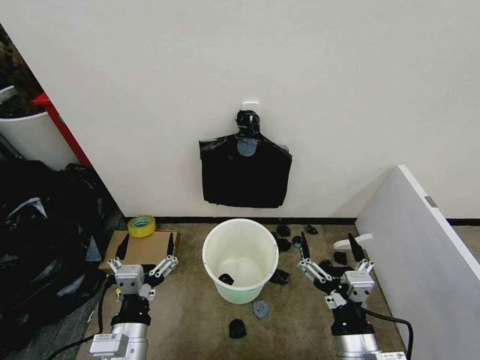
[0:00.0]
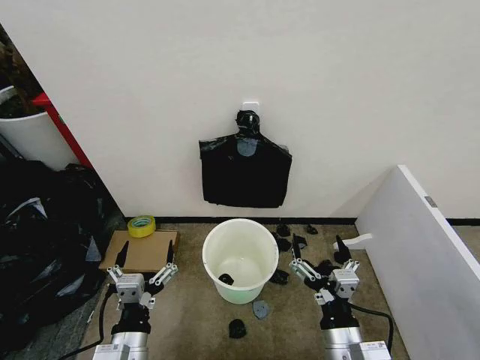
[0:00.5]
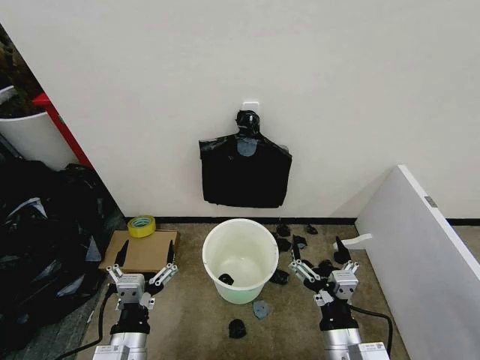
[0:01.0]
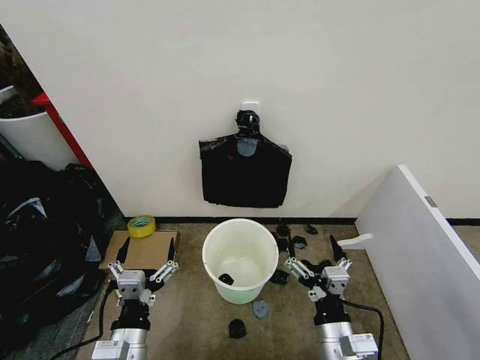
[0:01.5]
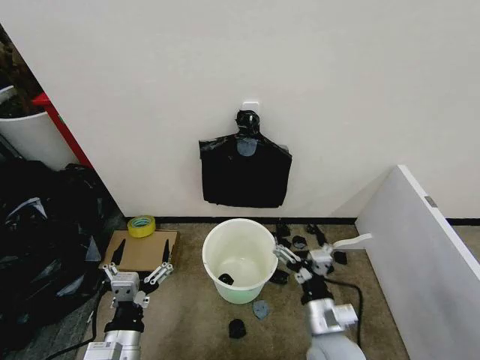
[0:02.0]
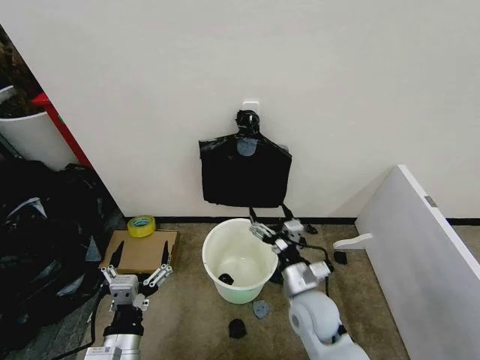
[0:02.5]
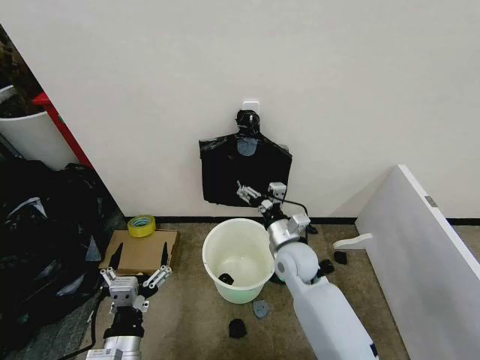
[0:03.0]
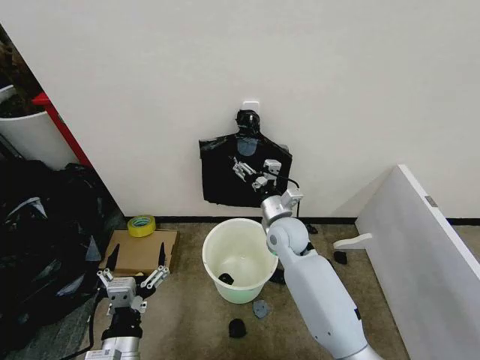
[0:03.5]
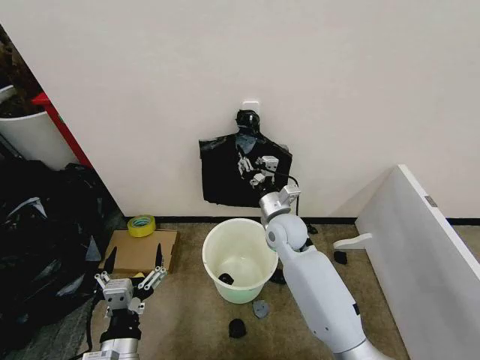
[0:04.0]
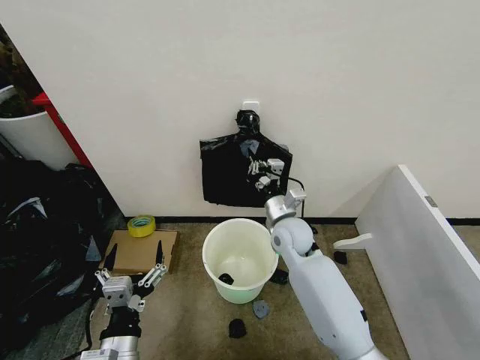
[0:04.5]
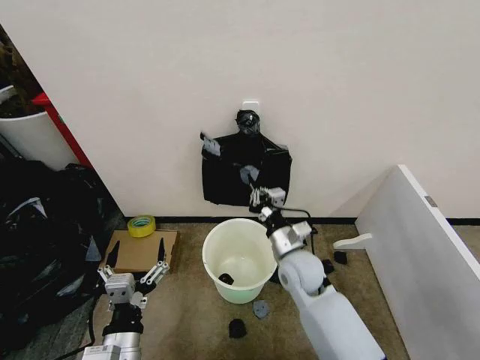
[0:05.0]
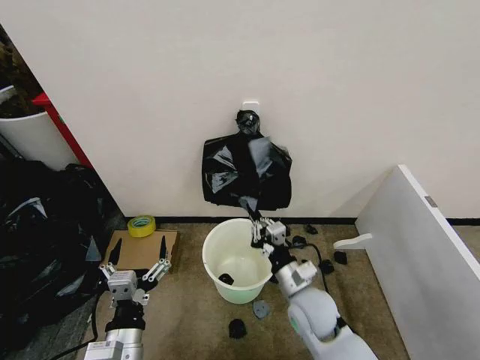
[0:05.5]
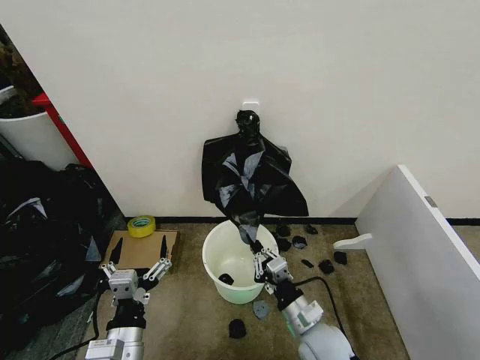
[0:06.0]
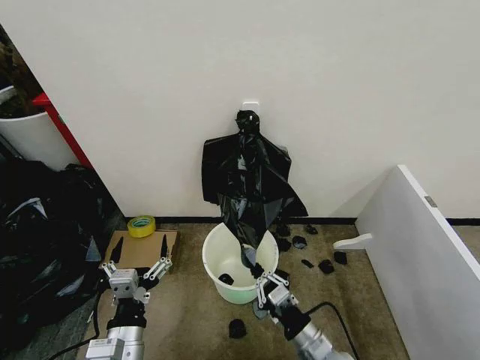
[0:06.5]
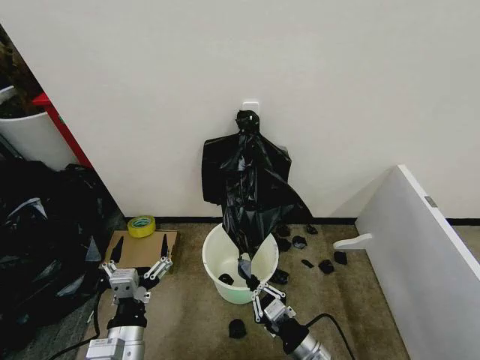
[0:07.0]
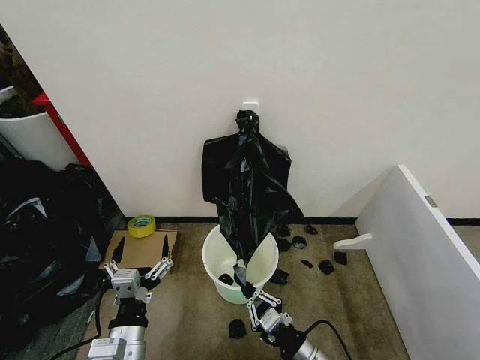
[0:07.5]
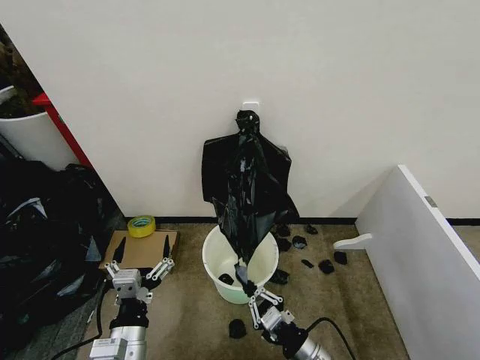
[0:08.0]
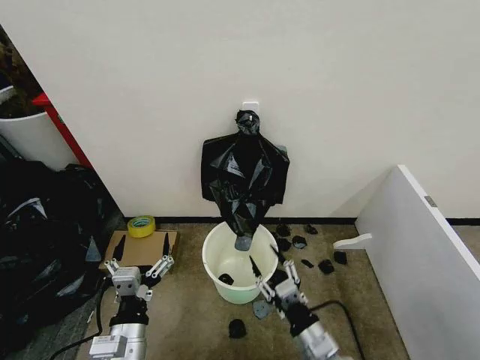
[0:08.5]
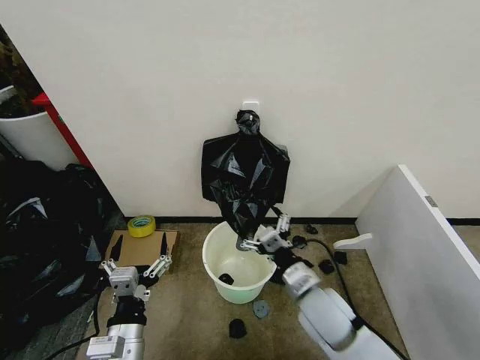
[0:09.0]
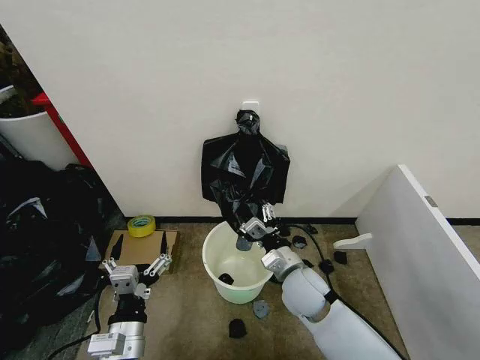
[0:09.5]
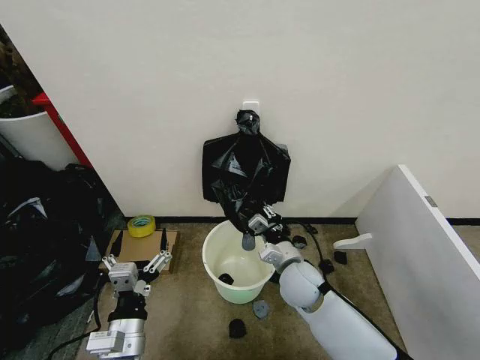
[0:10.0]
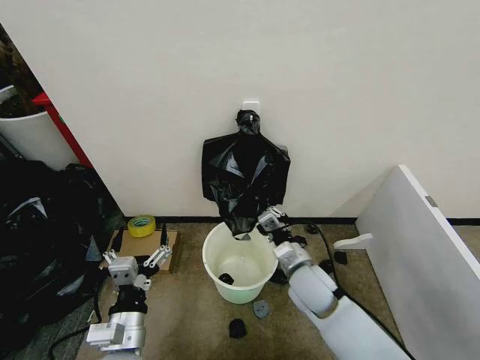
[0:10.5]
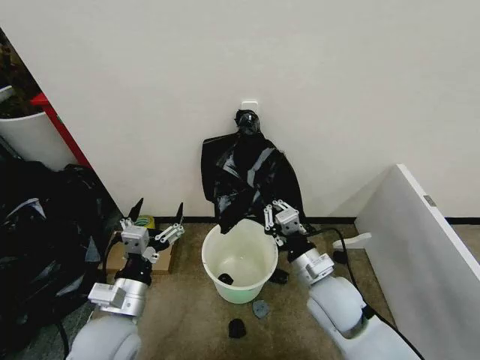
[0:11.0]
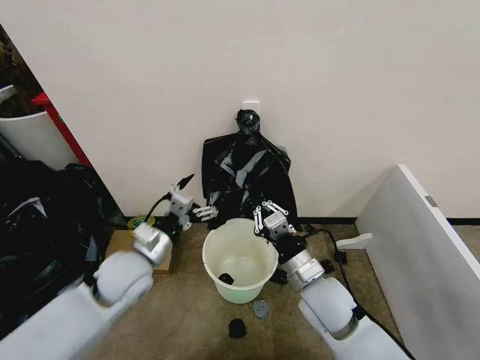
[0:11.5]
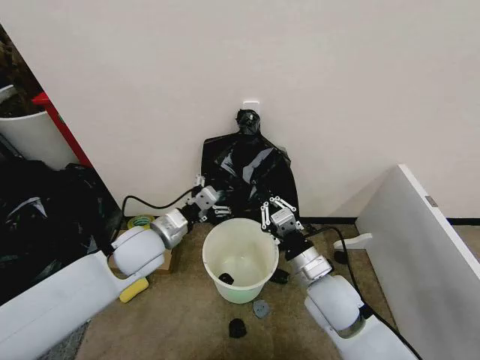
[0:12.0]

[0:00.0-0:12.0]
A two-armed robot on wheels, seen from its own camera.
Task of the whole recording: Place the garbage bag over the trash bin.
0:02.0 to 0:04.0: The right gripper goes approximately 25 cm forward, and closes.
0:04.0 to 0:06.0: The right gripper travels backward and downward by approximately 25 cm.
0:06.0 to 0:08.0: The right gripper goes roughly 5 cm backward.
0:08.0 to 0:10.0: The right gripper goes some 20 cm forward, and opens and closes again.
0:10.0 to 0:12.0: The right gripper travels upward and backward by roughly 10 cm, while the left gripper goes some 20 cm forward.

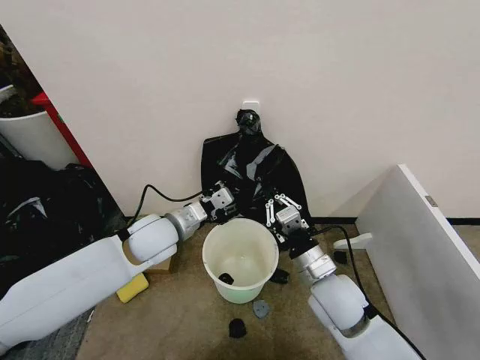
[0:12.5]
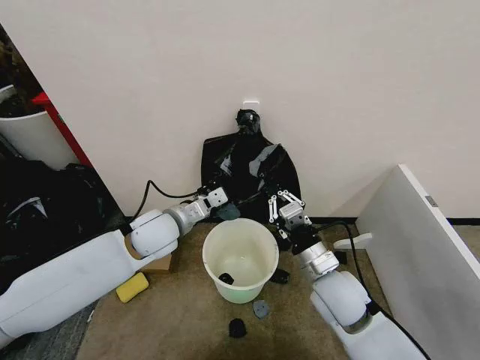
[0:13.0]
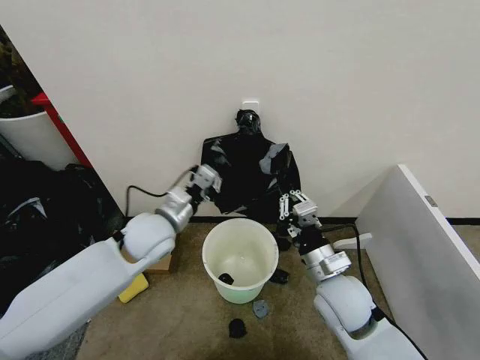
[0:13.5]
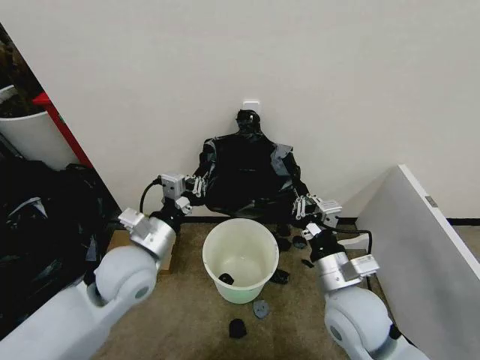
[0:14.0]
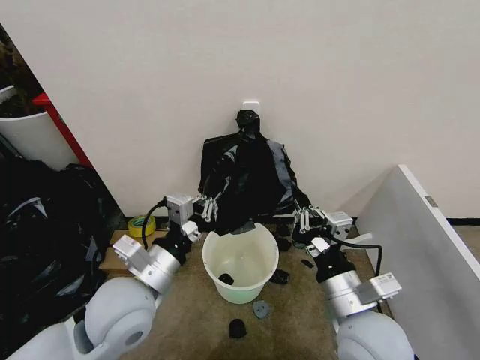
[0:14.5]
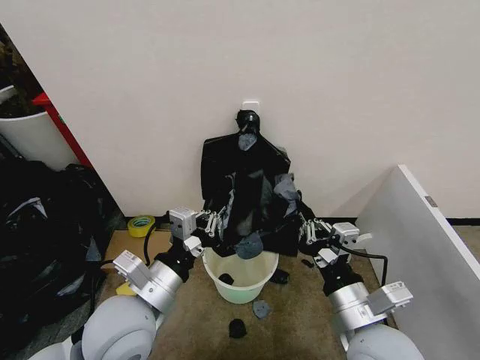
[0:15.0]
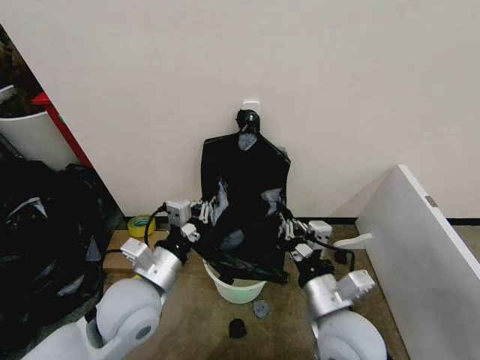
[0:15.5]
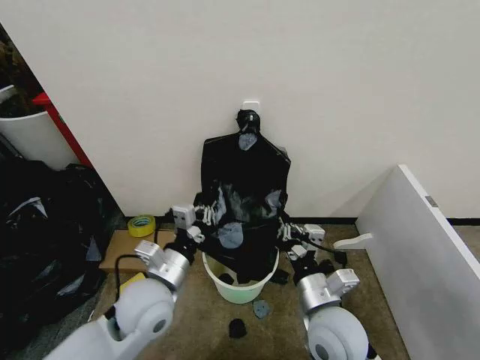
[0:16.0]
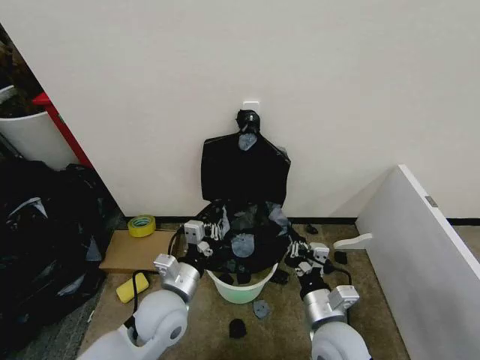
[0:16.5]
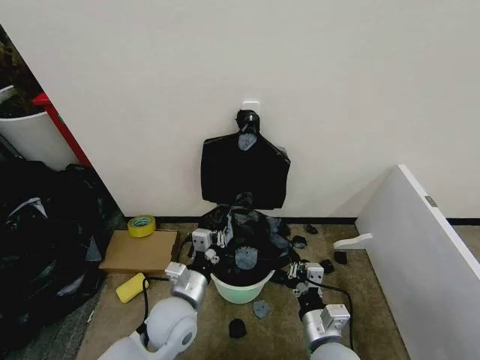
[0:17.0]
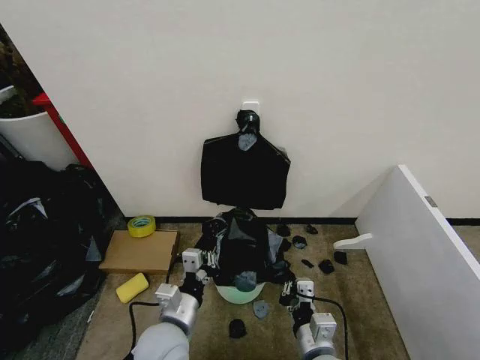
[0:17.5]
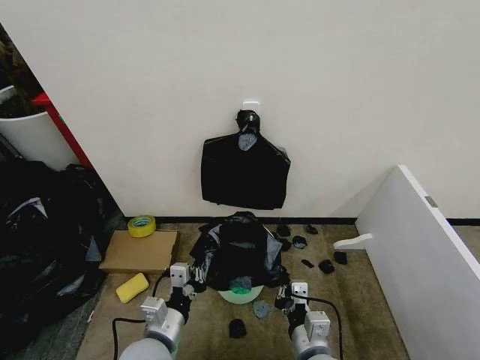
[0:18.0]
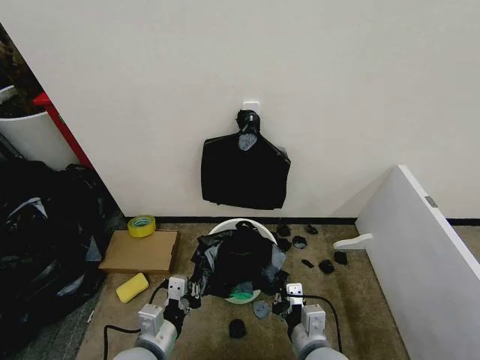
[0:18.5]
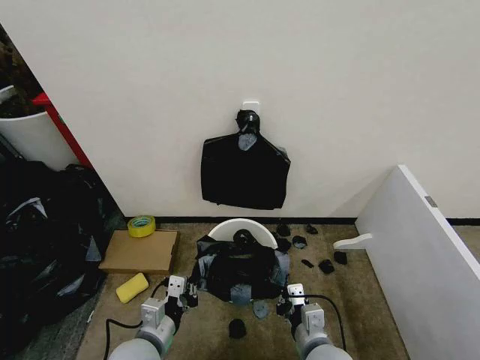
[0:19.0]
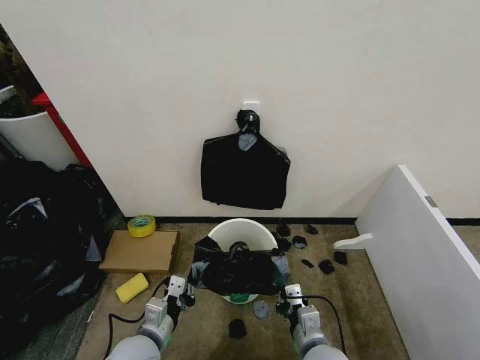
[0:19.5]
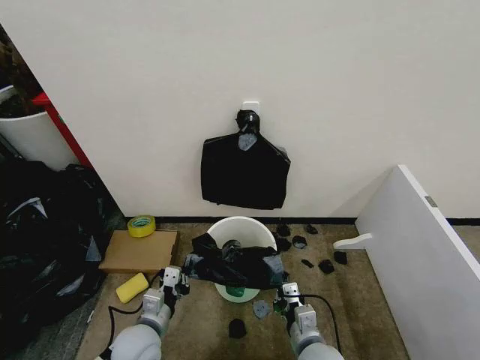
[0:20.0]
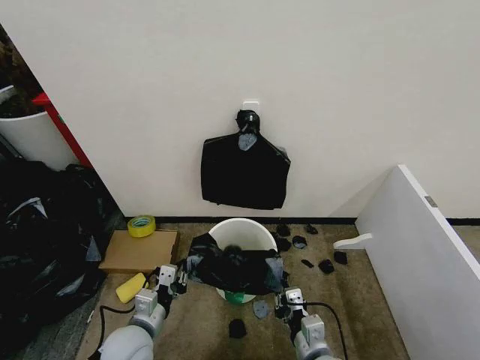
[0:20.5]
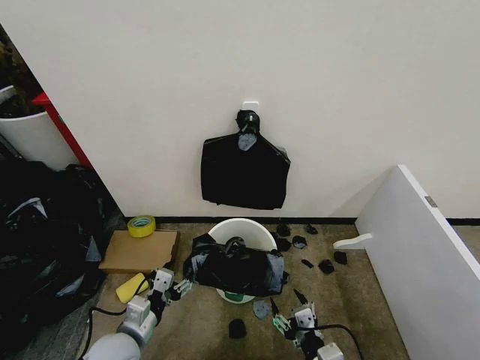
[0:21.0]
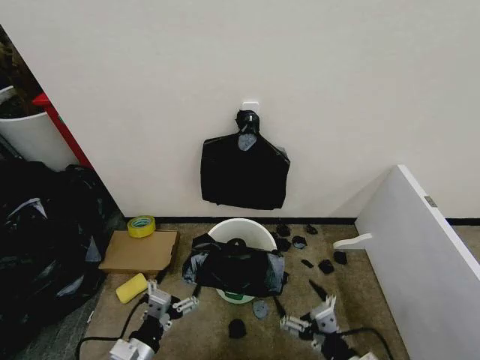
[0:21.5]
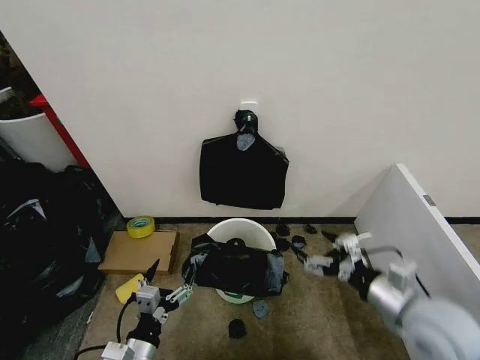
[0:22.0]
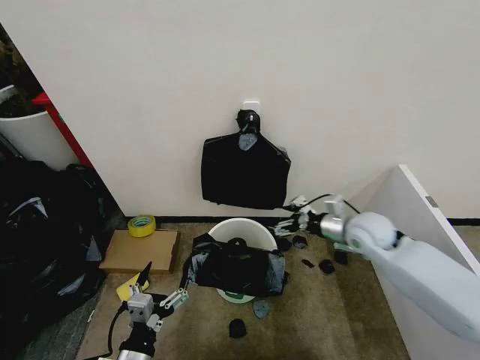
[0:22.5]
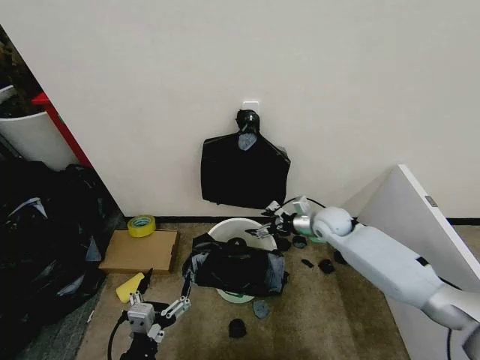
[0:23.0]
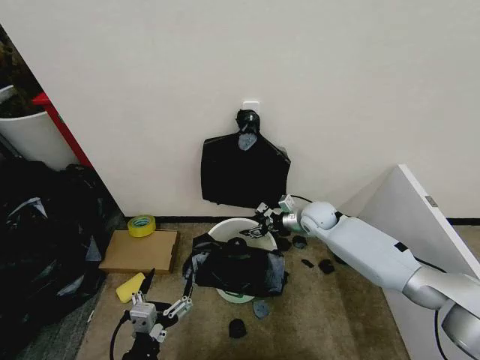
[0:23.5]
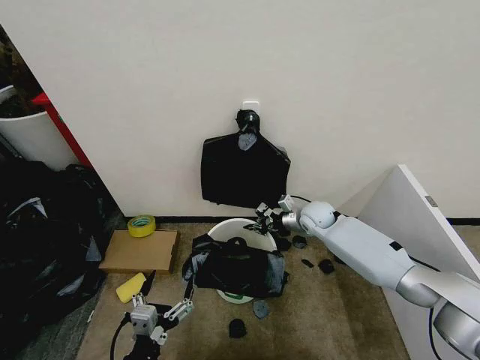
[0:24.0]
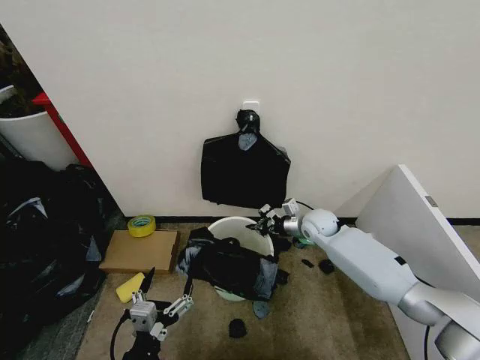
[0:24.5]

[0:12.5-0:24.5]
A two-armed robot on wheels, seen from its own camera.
Task of the whole recording: Place the garbage bag over the trash bin.
0:12.5 to 0:14.5: The right gripper is displaced backward and upward by approximately 10 cm, while the left gripper goes some 15 cm backward, and closes its fingers.
0:14.5 to 0:16.5: The two grippers go some 10 cm downward.
0:16.5 to 0:18.5: The left gripper is displaced backward by some 10 cm.
0:18.5 to 0:20.5: The left gripper shifts by approximately 10 cm.
0:20.5 to 0:22.5: The left gripper travels backward by about 10 cm, and opens up. The right gripper travels forward, upward and to the right by about 30 cm, and opens its fingers.
0:22.5 to 0:24.5: The right gripper goes about 15 cm downward, forward and to the left, and closes.

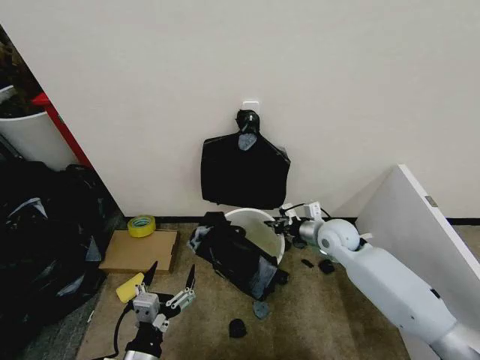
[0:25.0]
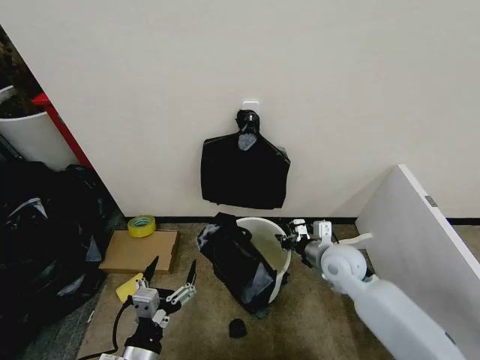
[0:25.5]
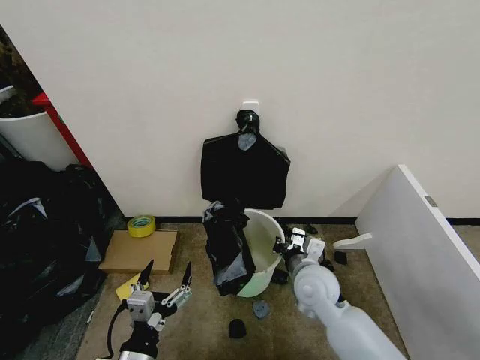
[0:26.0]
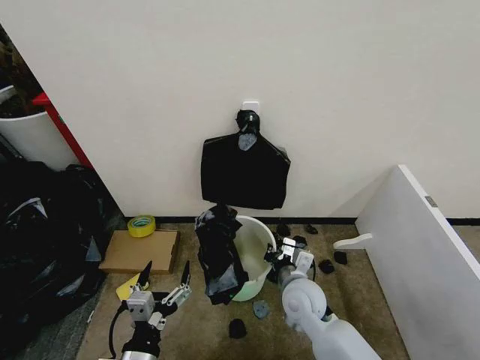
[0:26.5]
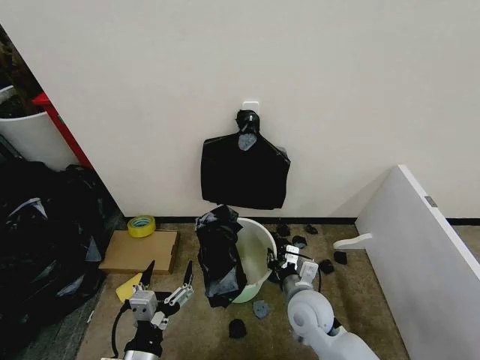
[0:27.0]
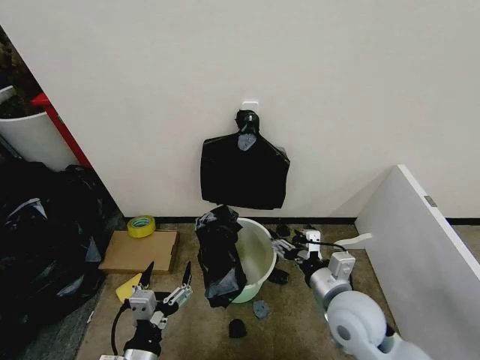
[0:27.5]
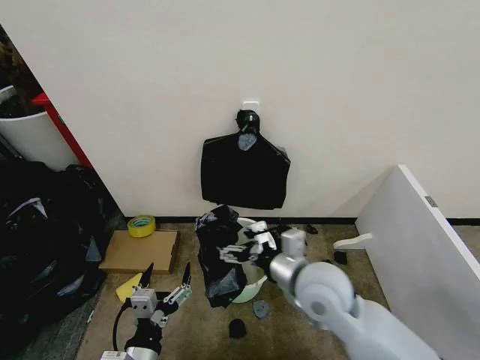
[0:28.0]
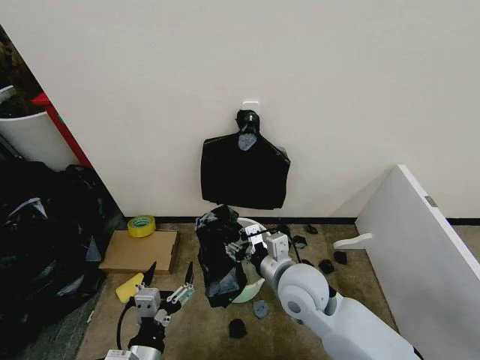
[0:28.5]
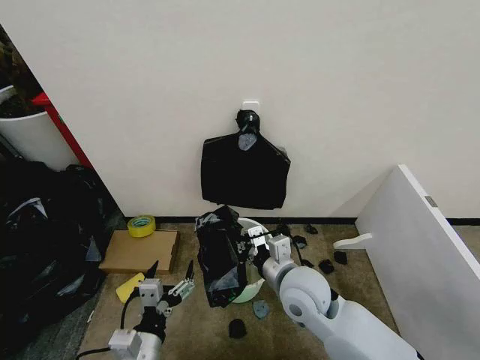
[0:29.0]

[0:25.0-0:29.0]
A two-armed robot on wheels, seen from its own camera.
Task of the whole recording: Place the garbage bag over the trash bin.
0:25.0 to 0:27.0: The right gripper heads backward and to the left, covering roughly 20 cm.
0:27.0 to 0:29.0: The right gripper heads upward, covering some 10 cm, and opens, then closes once more.
